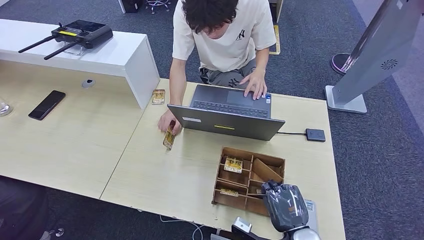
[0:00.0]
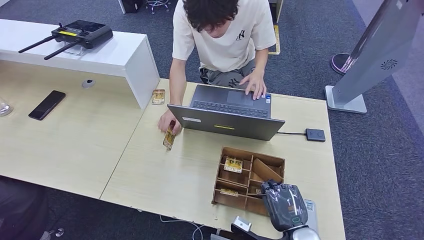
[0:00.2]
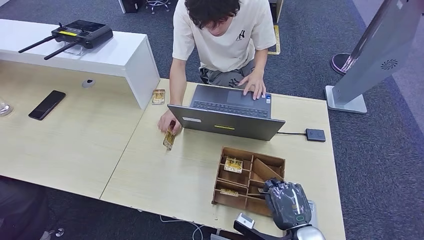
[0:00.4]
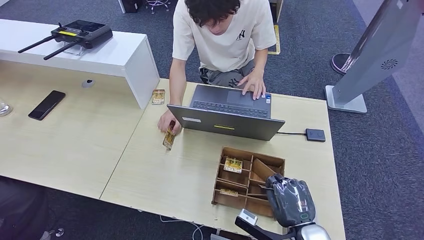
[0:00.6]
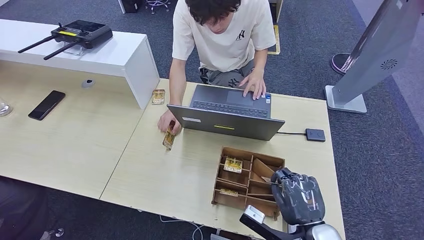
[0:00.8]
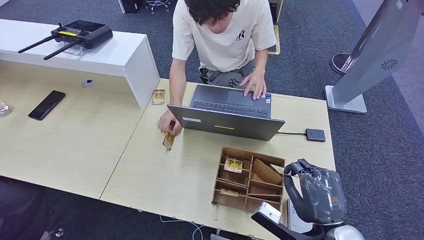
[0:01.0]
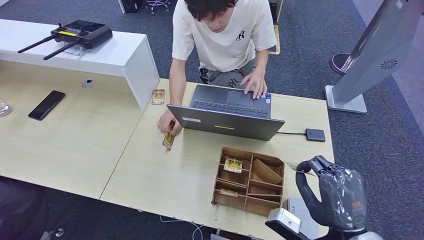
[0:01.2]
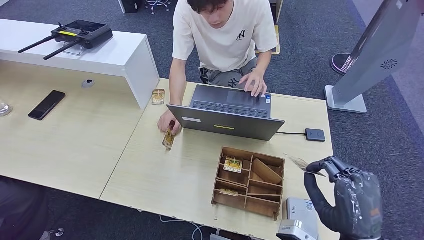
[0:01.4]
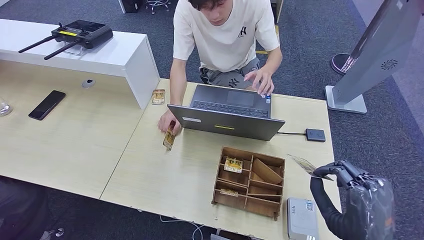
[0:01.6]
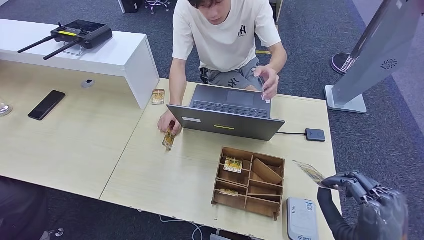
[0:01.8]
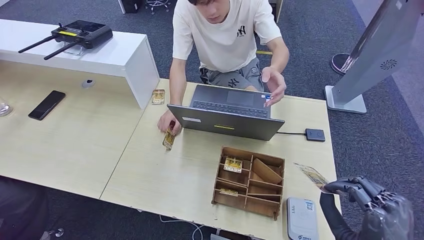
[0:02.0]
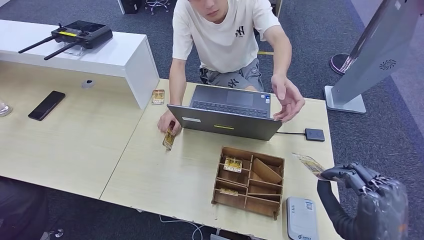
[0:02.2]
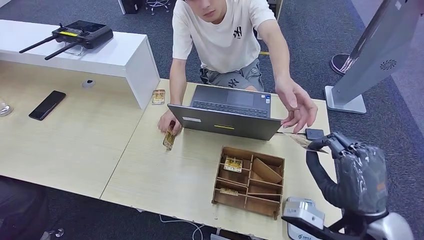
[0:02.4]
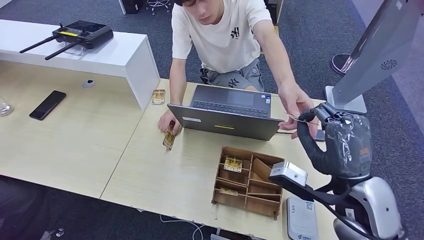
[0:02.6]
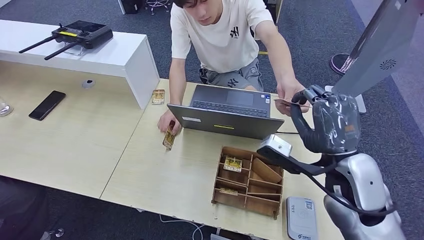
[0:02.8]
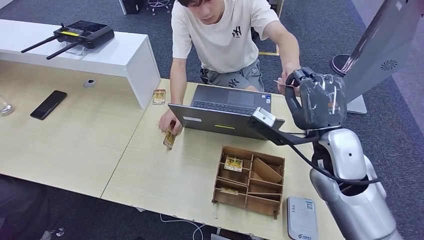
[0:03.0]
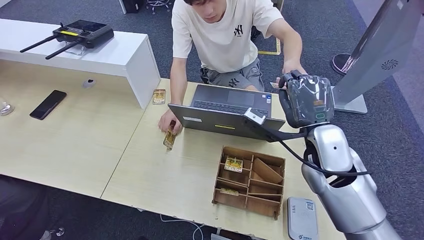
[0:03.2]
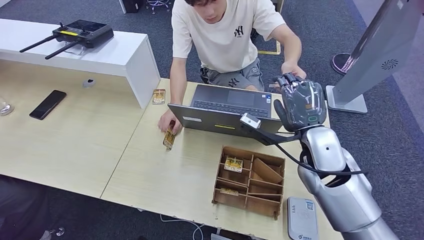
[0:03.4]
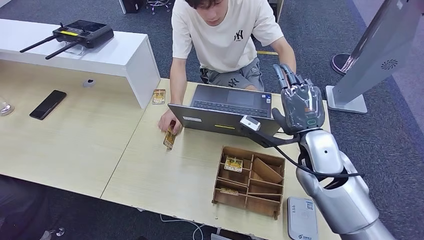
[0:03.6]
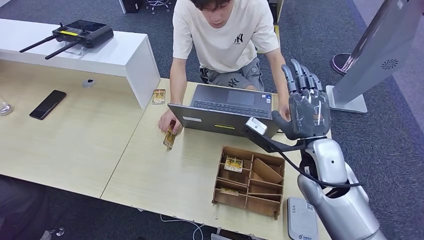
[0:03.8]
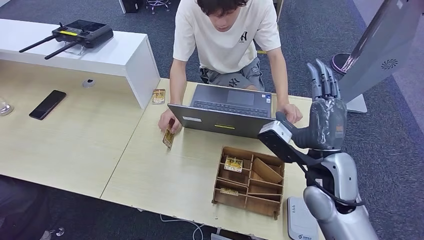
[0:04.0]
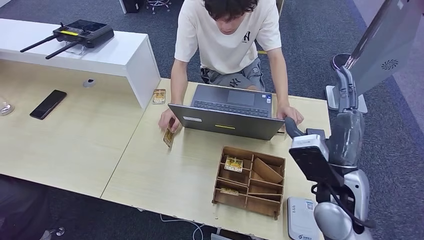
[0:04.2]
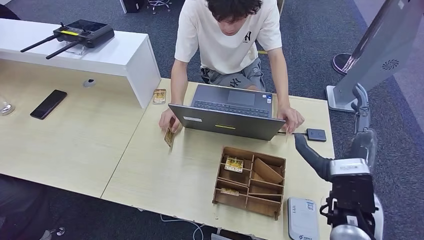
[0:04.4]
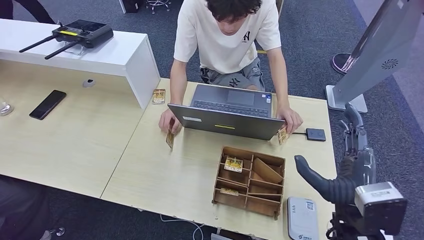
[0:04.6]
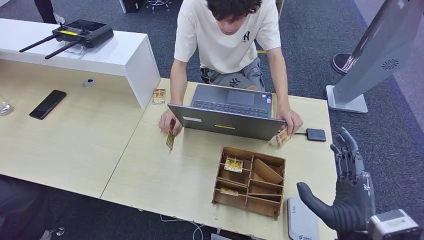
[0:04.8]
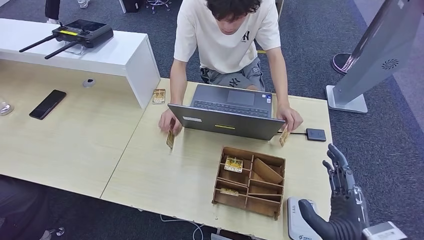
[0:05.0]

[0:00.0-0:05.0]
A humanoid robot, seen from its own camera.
Step, 0:02.0 to 0:05.0: Hand the room key to the person.
0:00.0 to 0:01.6: The right hand travels upward by approximately 15 cm.
0:01.6 to 0:03.4: The left hand moves some 5 cm, while the right hand travels forward by roughly 20 cm.
0:03.4 to 0:05.0: The right hand moves backward, some 20 cm.

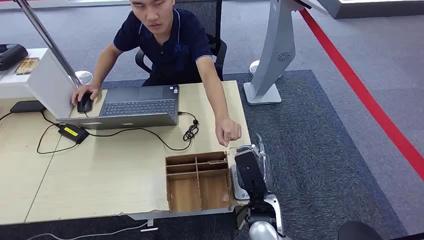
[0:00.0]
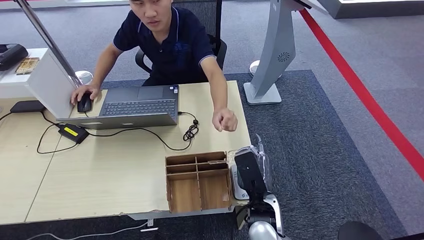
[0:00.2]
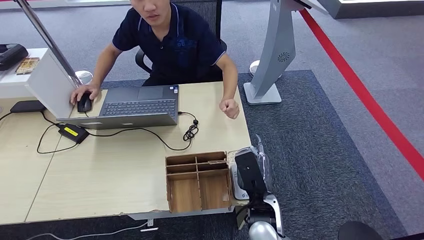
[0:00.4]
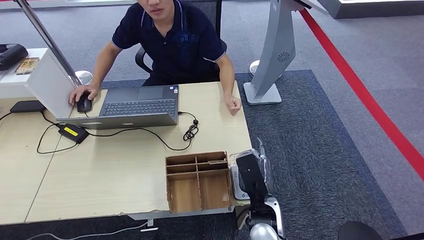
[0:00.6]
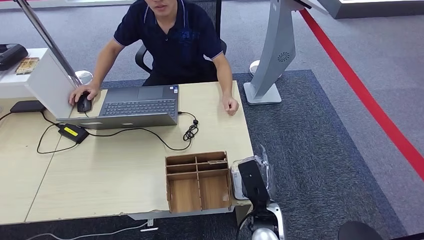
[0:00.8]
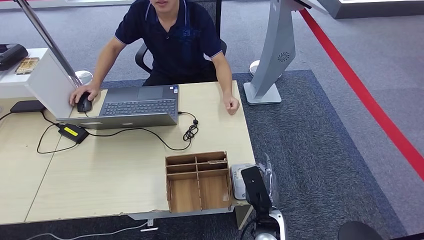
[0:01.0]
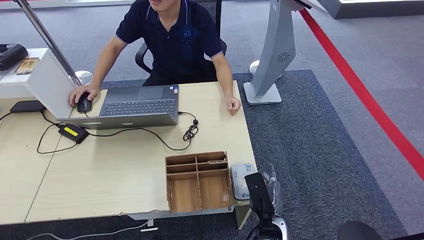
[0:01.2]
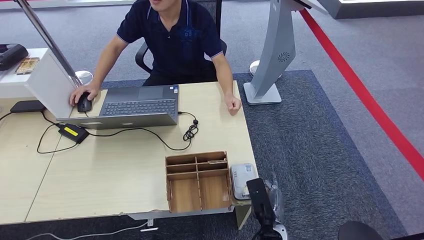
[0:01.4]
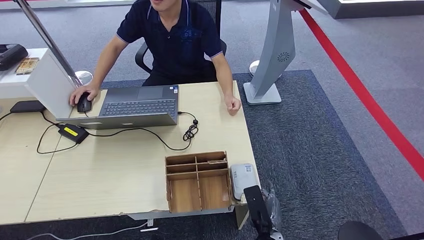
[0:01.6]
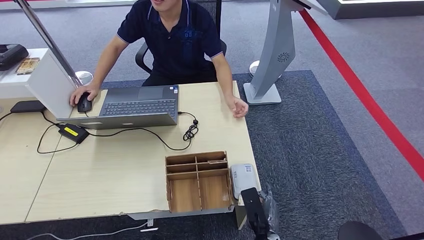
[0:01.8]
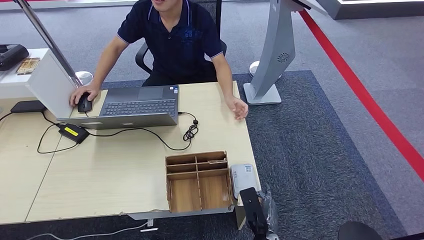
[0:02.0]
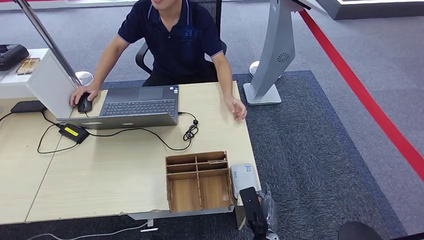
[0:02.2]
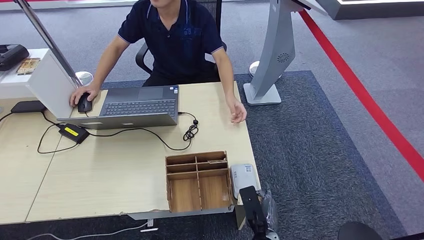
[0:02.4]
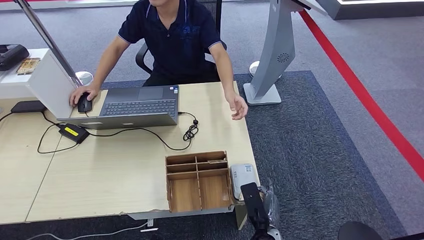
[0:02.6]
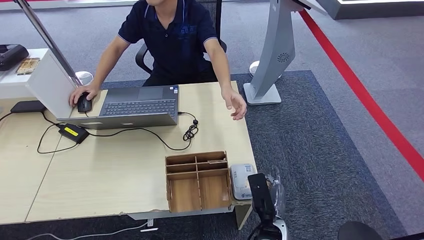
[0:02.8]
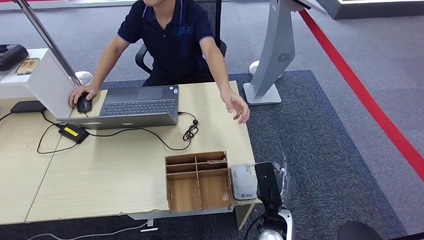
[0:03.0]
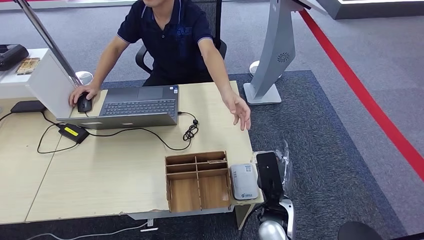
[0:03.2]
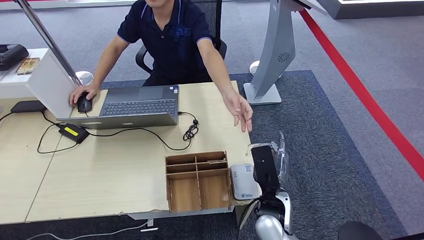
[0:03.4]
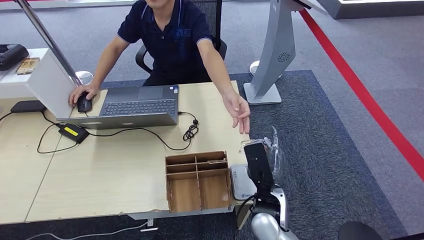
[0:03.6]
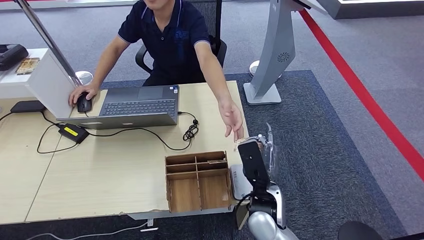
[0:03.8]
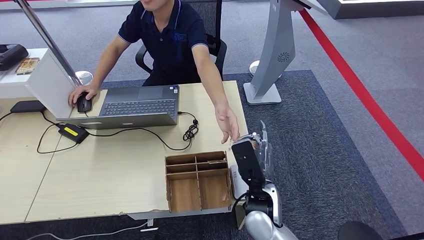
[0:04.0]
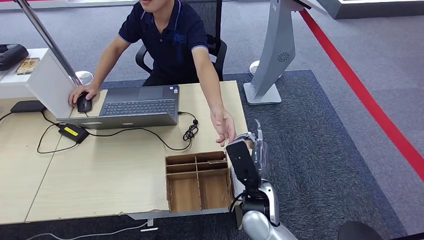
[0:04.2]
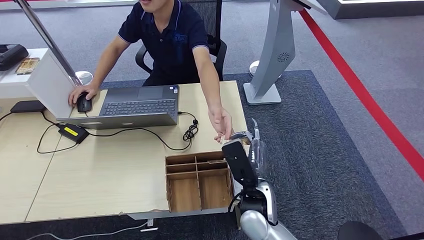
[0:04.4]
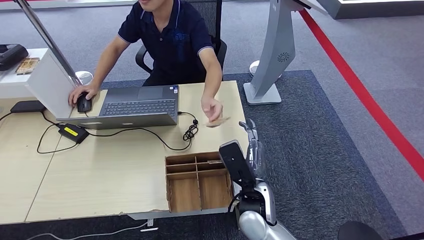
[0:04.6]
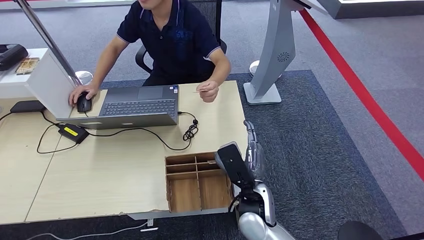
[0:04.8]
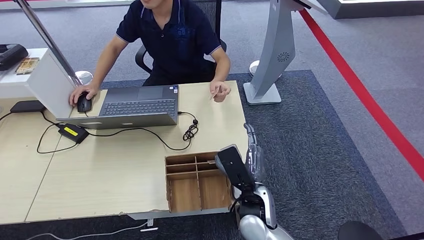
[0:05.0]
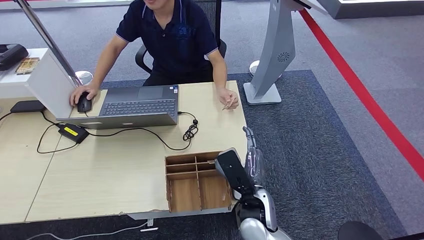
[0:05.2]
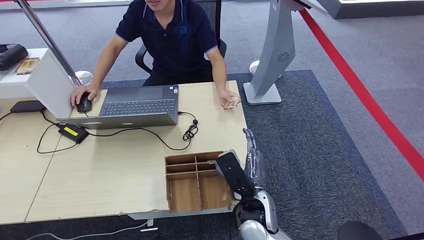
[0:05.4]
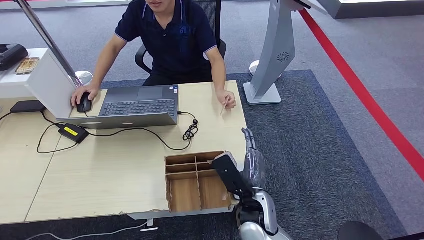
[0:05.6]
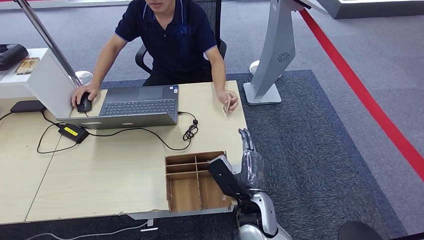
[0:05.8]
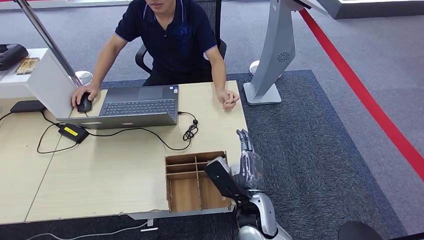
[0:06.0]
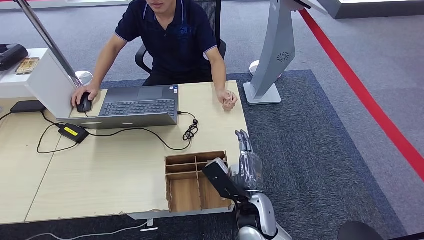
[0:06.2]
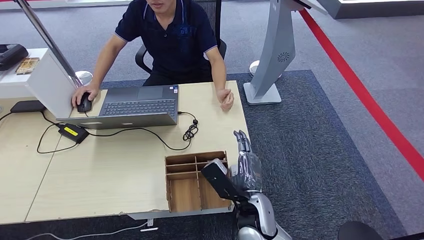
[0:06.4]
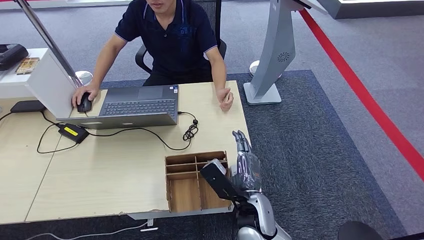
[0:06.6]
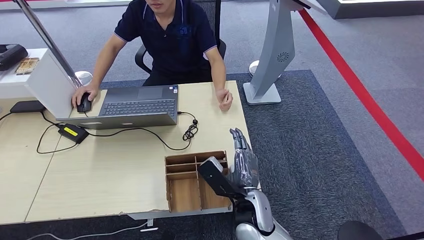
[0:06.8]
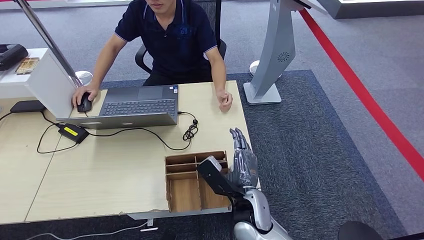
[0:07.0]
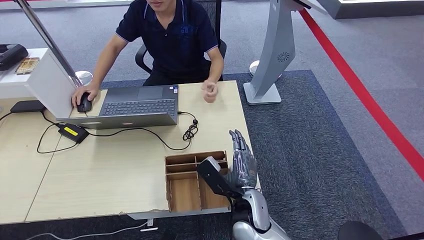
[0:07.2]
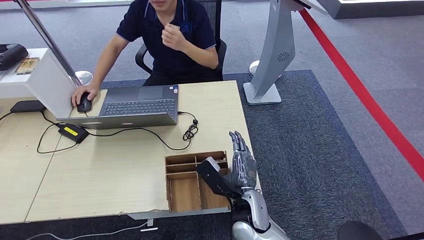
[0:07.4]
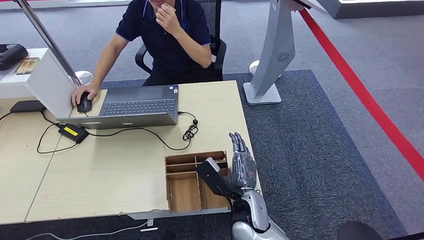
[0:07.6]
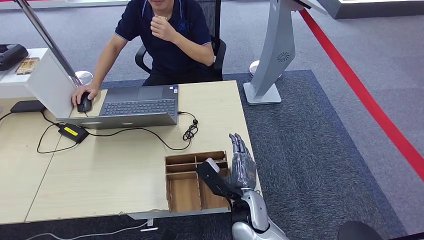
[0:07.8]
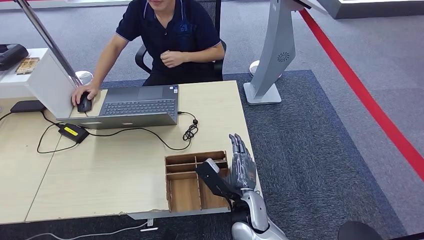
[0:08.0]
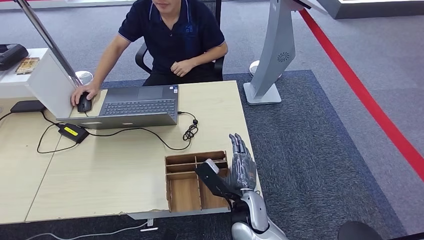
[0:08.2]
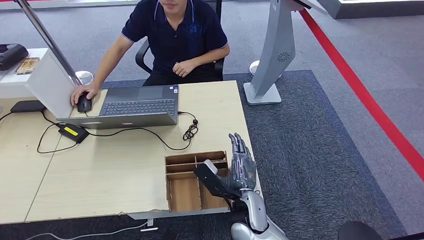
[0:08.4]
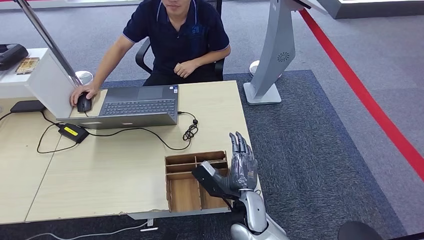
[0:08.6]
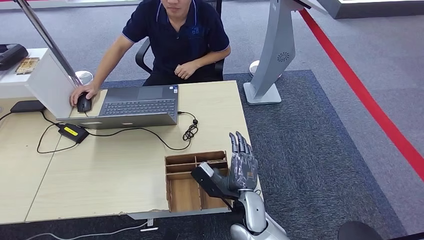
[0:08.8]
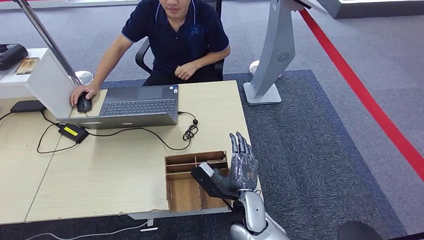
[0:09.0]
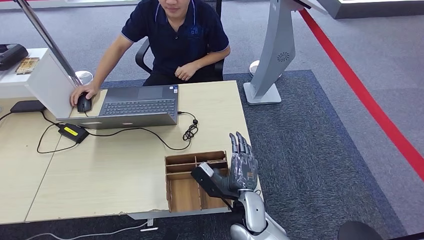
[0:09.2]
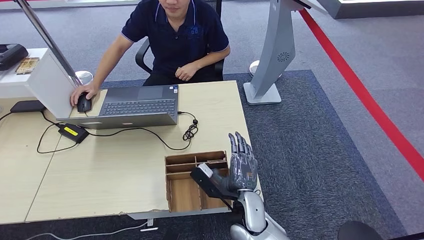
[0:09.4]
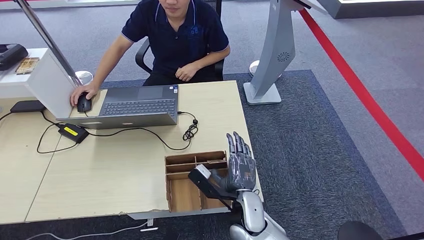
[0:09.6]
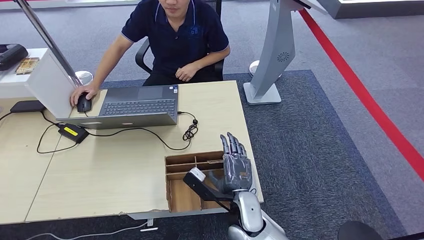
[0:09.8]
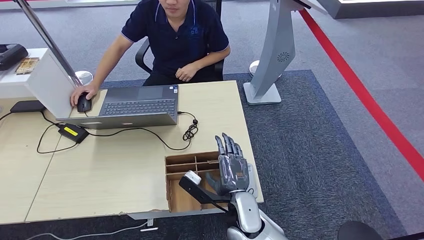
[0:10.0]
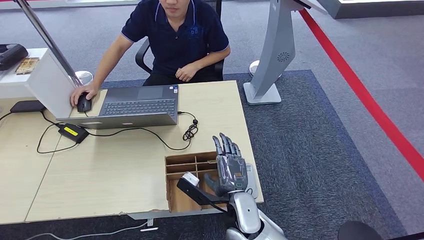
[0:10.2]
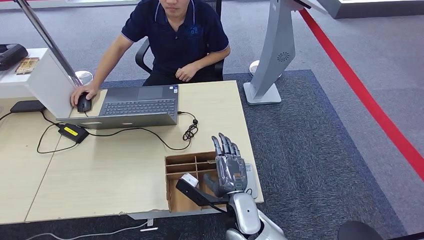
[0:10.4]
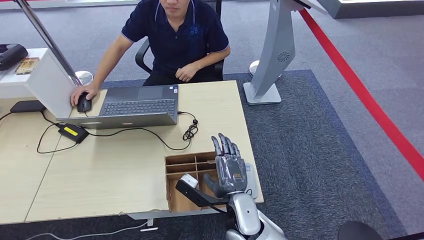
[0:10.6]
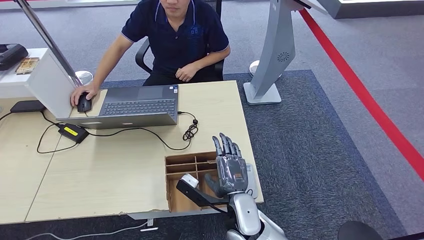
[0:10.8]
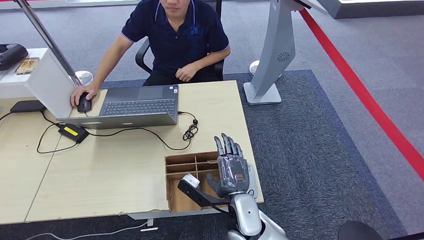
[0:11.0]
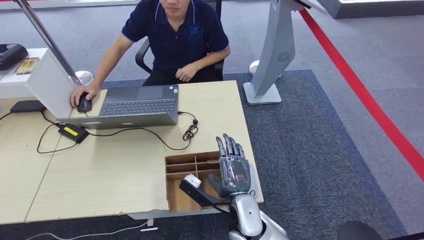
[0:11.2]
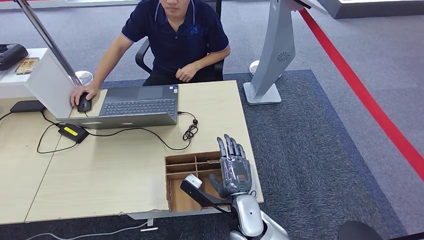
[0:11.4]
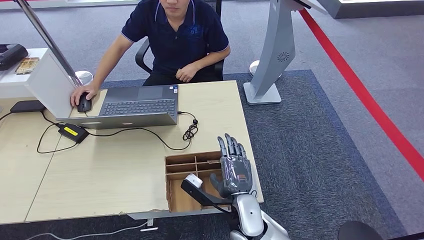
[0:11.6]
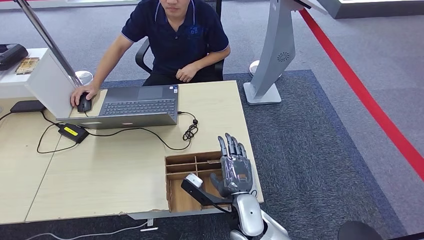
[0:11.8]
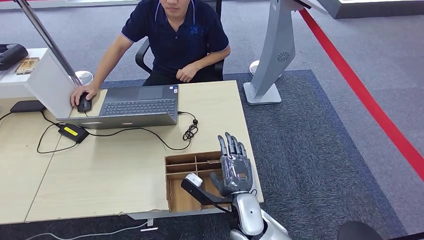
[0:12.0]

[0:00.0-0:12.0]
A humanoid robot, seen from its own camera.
Step, 0:00.0 to 0:00.8: Take the ID card from the person's hand.
Step, 0:01.0 to 0:03.0: Place the ID card on the card reader.
Step, 0:03.2 to 0:05.4: Hand the ID card to the person.
0:01.6 to 0:03.0: The right hand goes some 5 cm upward.
0:03.0 to 0:04.4: The right hand shifts roughly 10 cm upward and forward.
0:04.4 to 0:06.0: The hands stay close to where they were, moving slightly.
0:06.0 to 0:09.0: The hands stay close to where they were, moving slightly.
0:09.0 to 0:12.0: There are only small adjustments of the hands.
